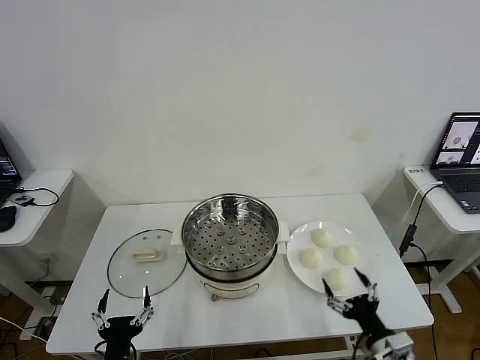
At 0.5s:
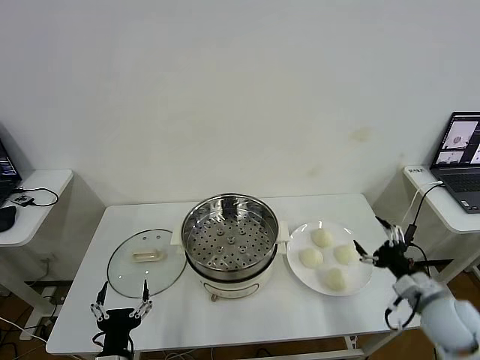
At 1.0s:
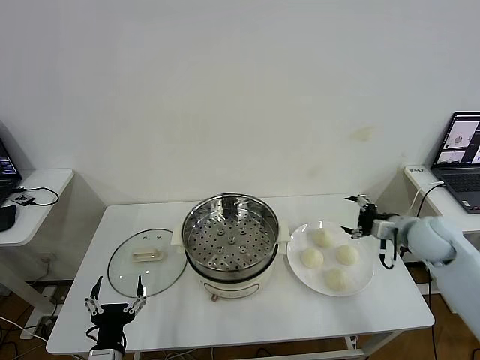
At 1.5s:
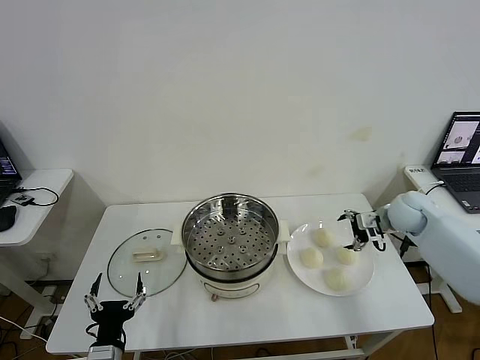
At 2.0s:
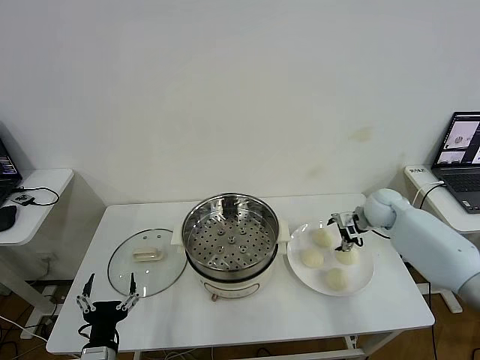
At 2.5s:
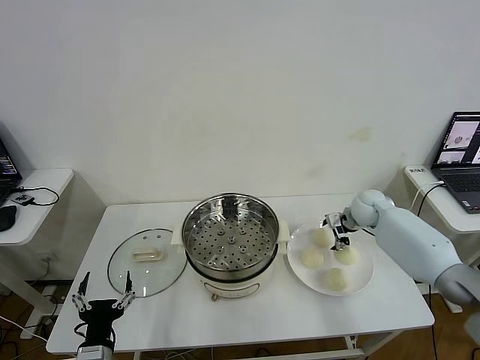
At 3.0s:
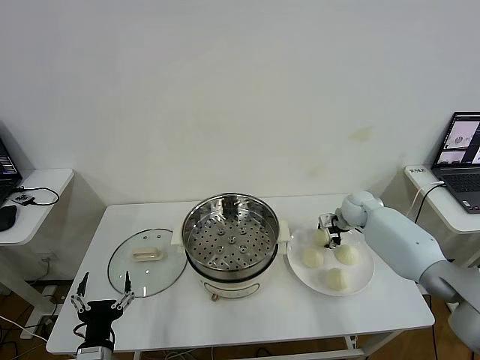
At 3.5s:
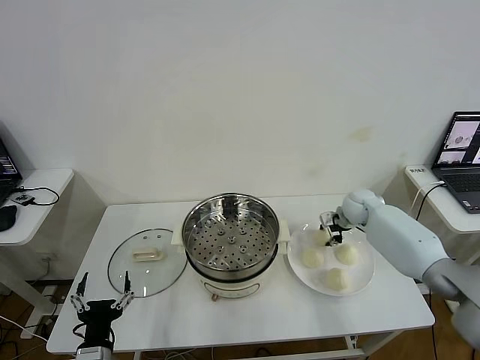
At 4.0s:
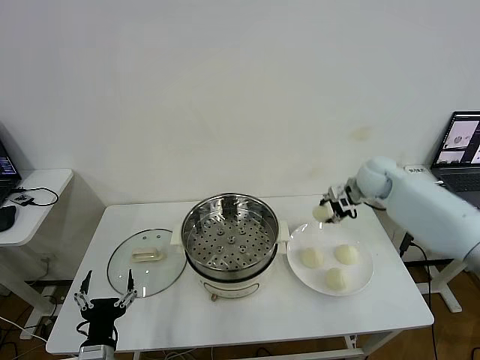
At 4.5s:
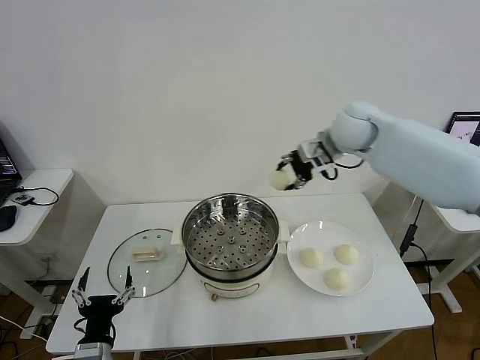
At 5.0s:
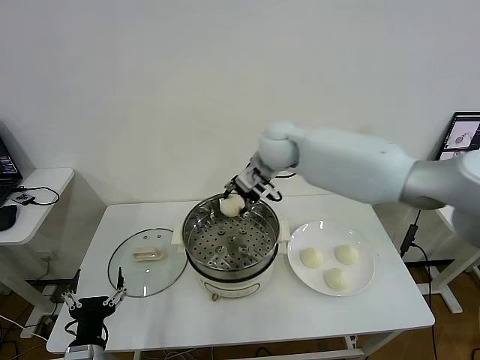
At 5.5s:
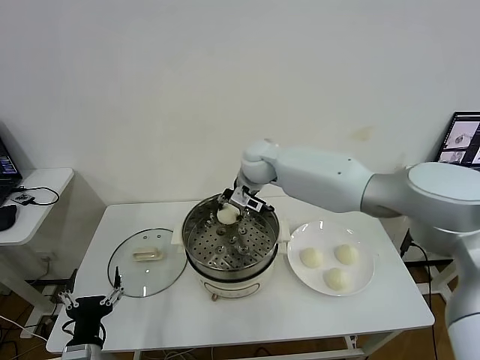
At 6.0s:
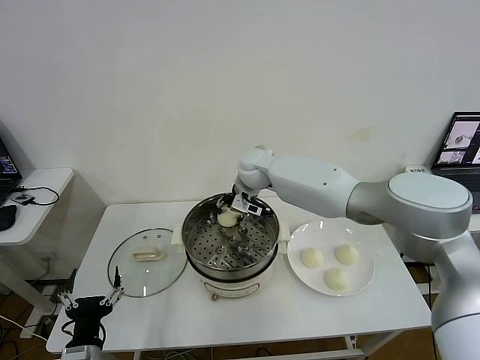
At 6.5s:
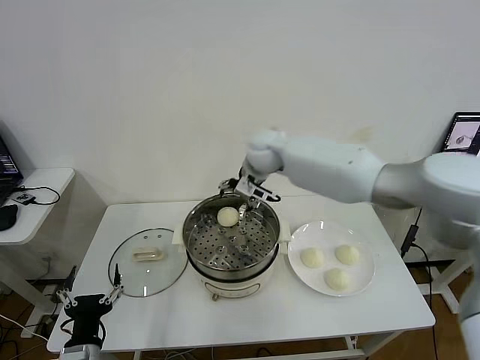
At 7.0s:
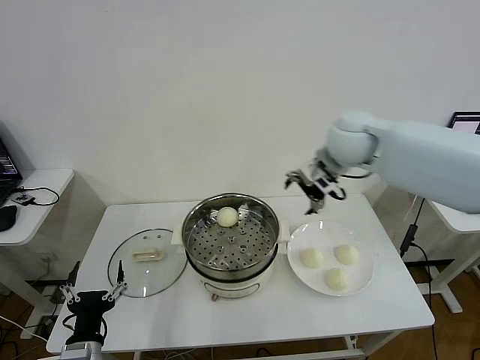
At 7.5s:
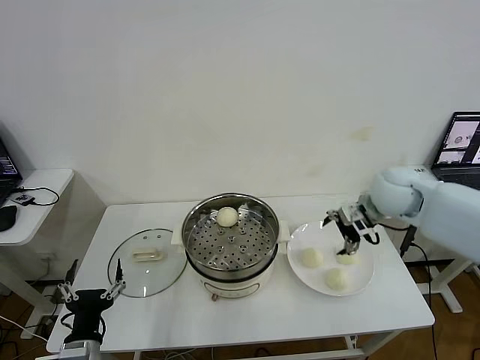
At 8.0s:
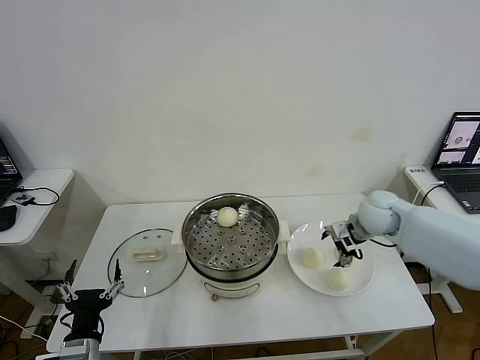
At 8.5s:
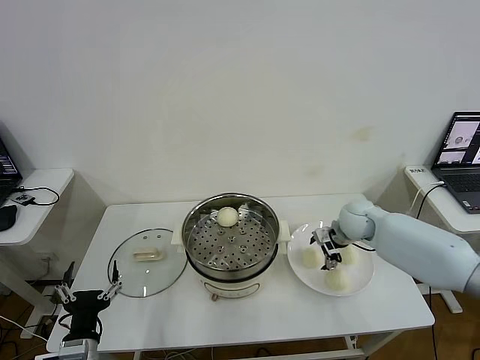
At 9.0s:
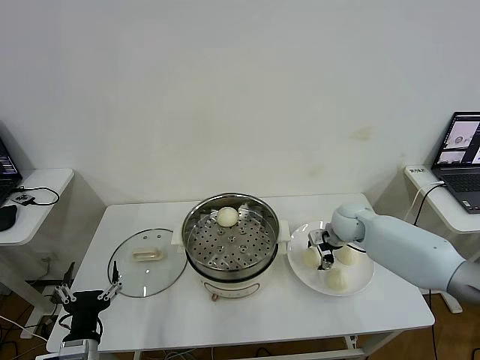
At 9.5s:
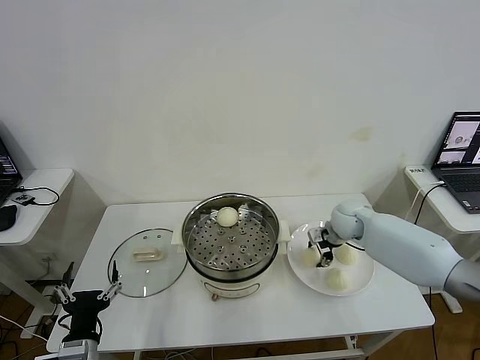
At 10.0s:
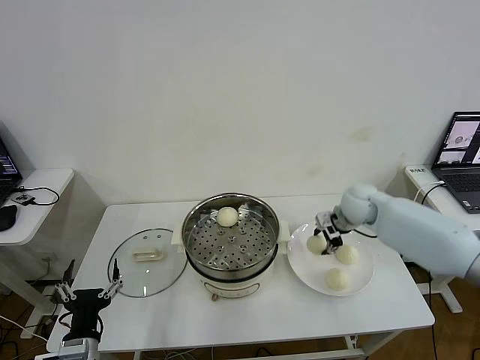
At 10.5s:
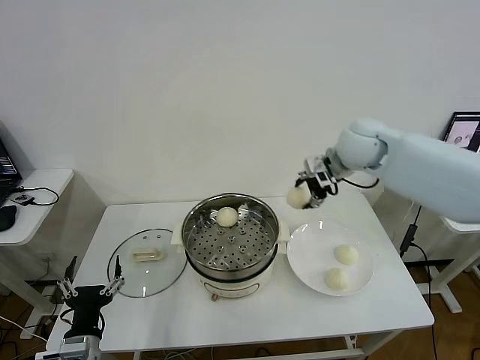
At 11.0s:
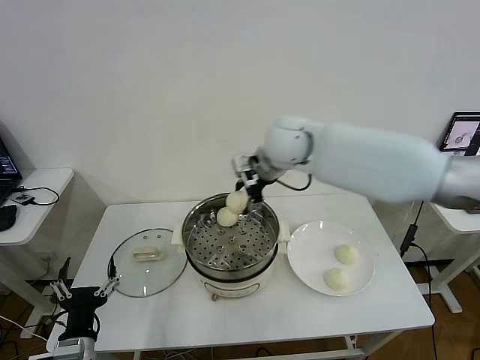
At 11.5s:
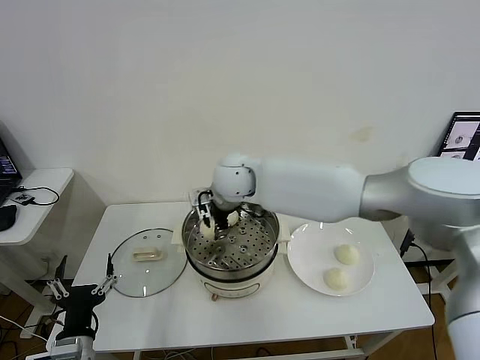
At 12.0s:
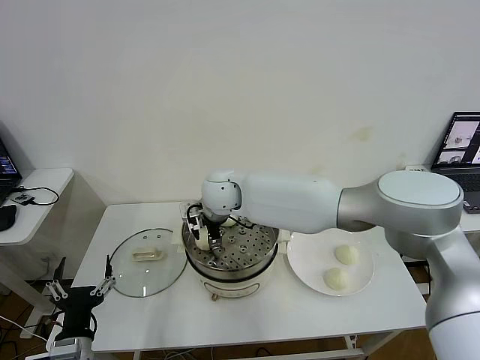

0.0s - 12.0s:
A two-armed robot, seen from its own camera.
Step, 0.0s - 3.0s: Grasp the baozi in the plate with right gripper.
Step, 3.5s - 6.0s: Place the baozi on the steamer with right gripper.
Step, 6.5s - 9.5s: Grasp the baozi in the plate with right gripper.
2.0s - 4.0s: The right gripper goes about 15 cm upward, and closes up.
4.0s - 6.0s: The right gripper moves to the left, about 25 cm, and opens.
6.0s - 8.0s: The right gripper travels to the right by some 25 cm, and opens.
8.0s - 10.0s: The right gripper moves roughly 5 cm, and closes.
10.0s - 12.0s: The right gripper moves to the left, about 35 cm, and opens up.

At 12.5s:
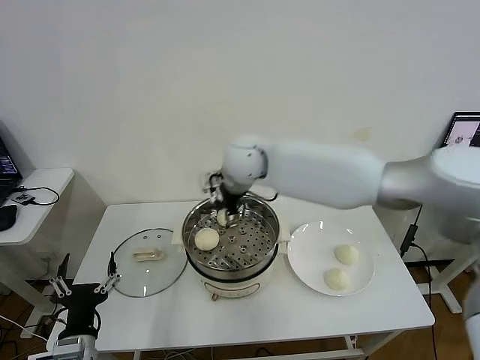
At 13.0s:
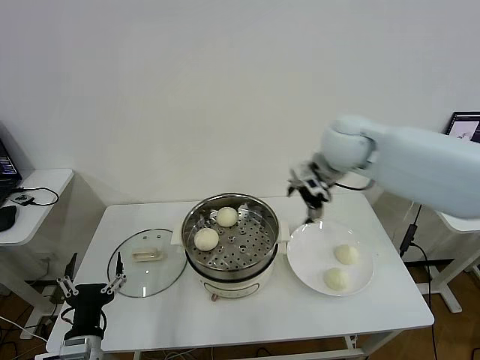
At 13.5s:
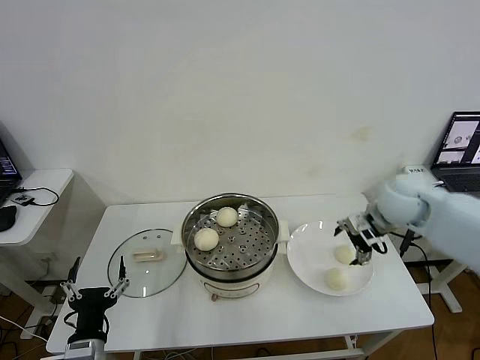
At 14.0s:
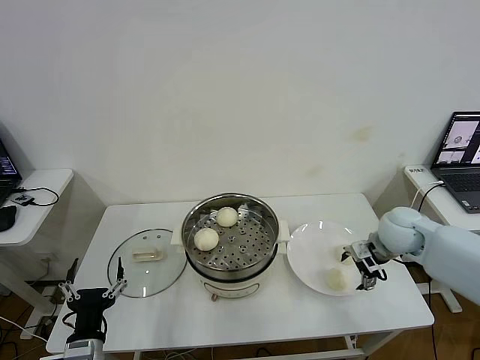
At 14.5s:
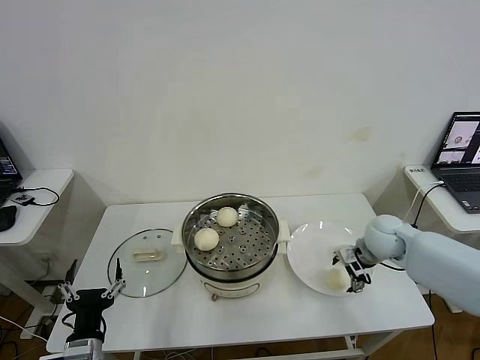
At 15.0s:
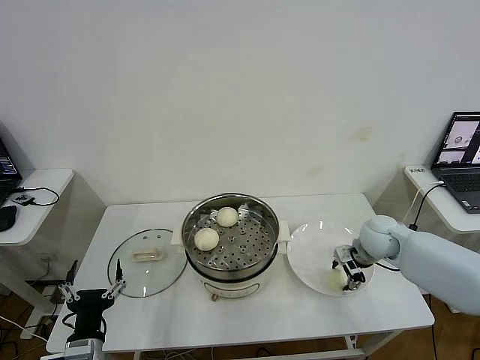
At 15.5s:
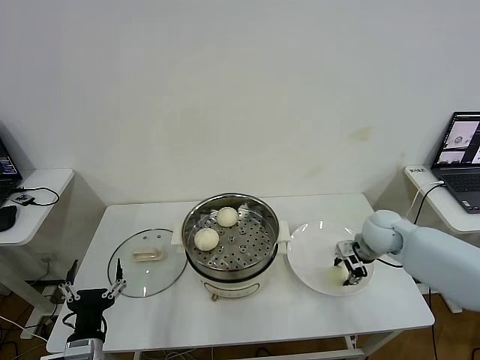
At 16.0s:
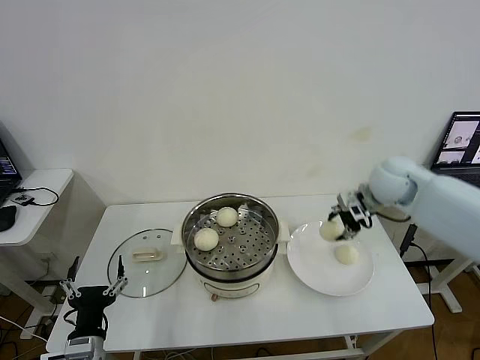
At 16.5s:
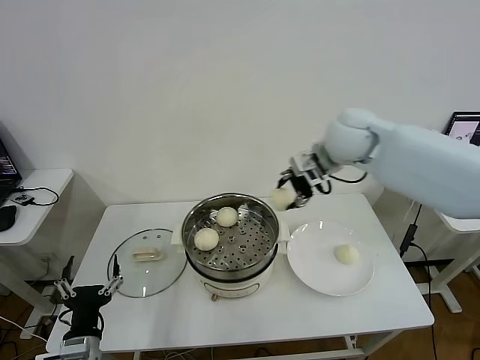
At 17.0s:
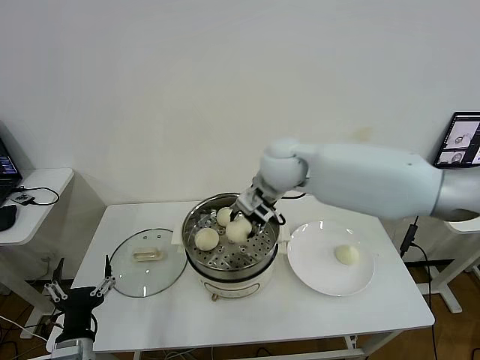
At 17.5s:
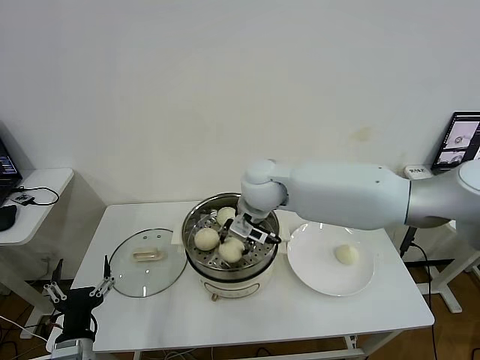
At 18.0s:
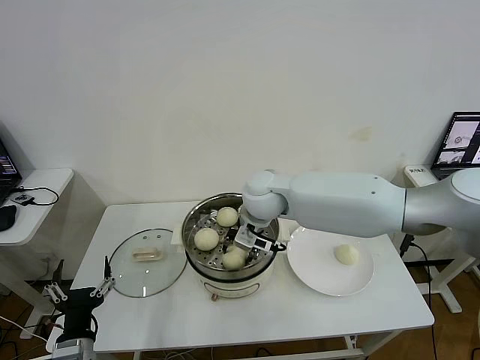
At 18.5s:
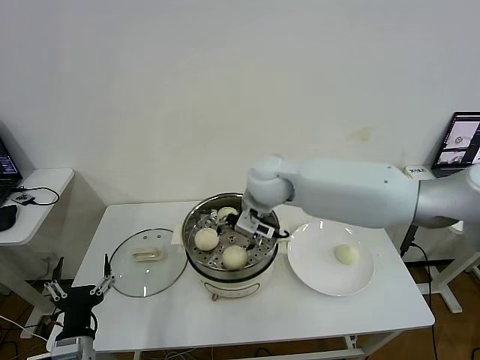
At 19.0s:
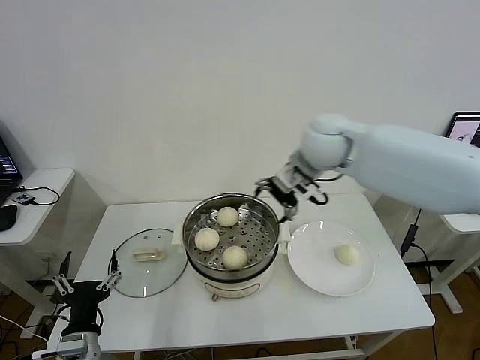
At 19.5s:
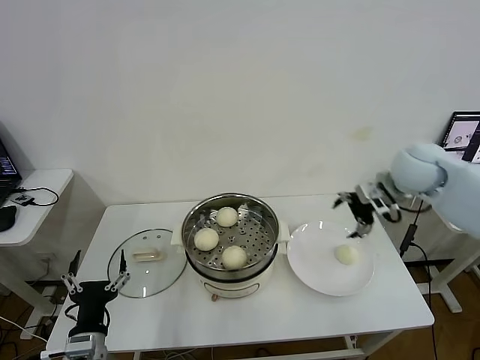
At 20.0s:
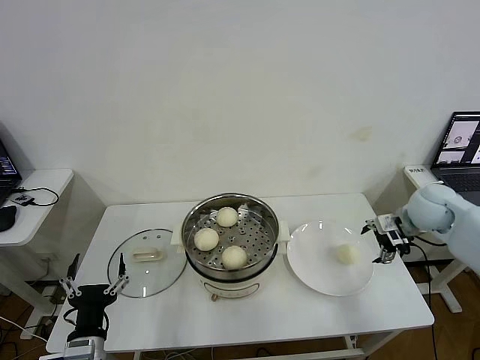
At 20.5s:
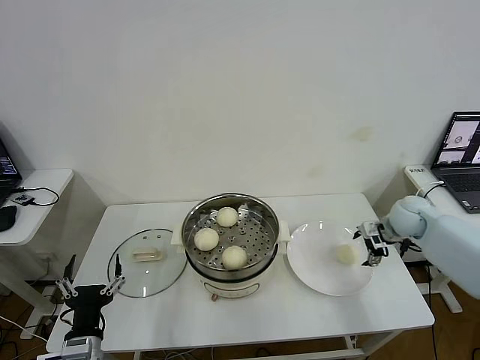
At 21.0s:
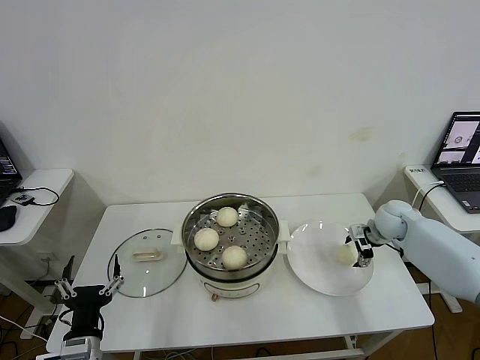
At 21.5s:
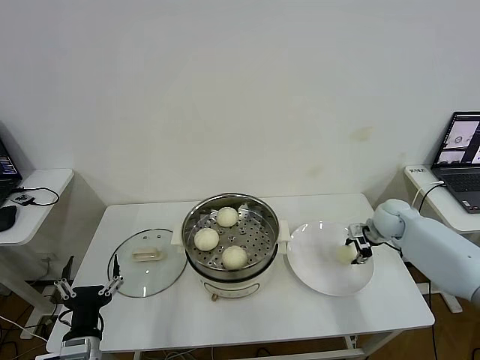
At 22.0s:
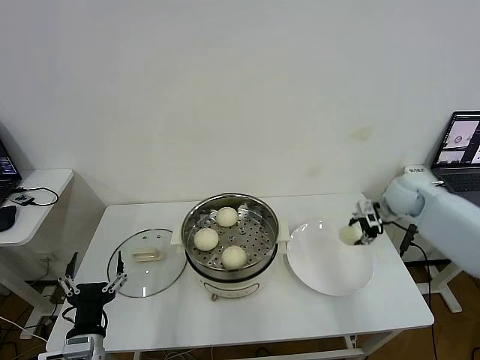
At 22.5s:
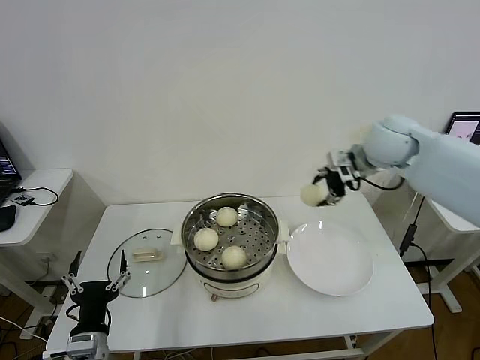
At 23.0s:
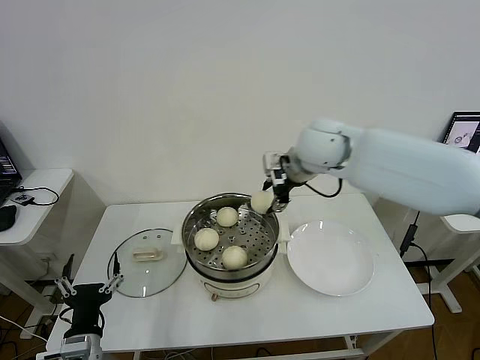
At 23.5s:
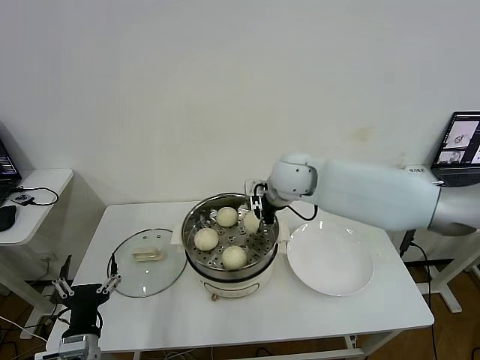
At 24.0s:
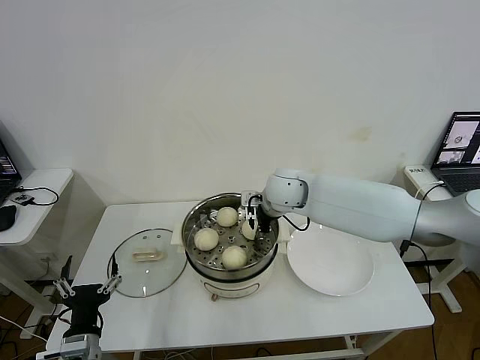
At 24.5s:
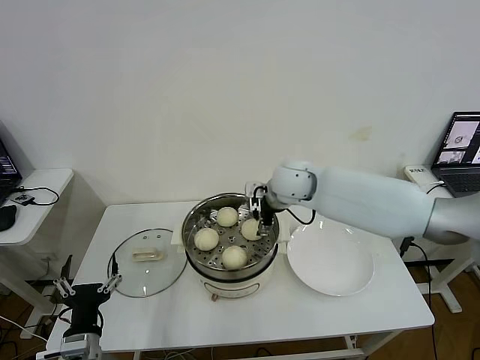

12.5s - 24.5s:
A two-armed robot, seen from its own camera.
Step, 12.5s - 15.0s: Grasp the baozi in the plate with right gripper.
Step, 15.5s - 18.0s: Place the baozi on the steamer with right gripper.
Step, 19.0s - 21.5s: Grasp the baozi in the plate with right gripper.
Step, 22.0s - 24.5s: Place the baozi on the steamer with right gripper.
12.5s - 14.5s: The right gripper goes some 35 cm to the right and downward.
14.5s - 16.5s: The right gripper travels upward and to the left by approximately 25 cm, and closes its fingers.
16.5s - 18.5s: The right gripper travels to the left and downward by some 15 cm, and opens up.
18.5s - 20.5s: The right gripper travels to the right and downward by about 40 cm.
20.5s - 22.5s: The right gripper travels upward and to the left by some 25 cm, and closes.
22.5s - 24.5s: The right gripper moves to the left and downward, about 20 cm, and opens up.

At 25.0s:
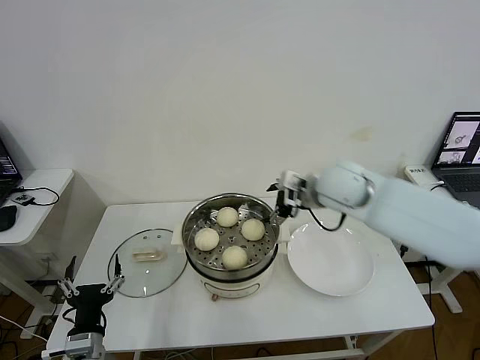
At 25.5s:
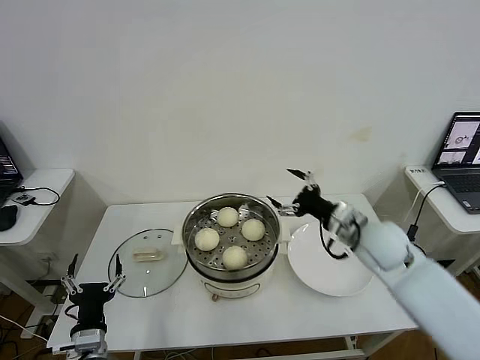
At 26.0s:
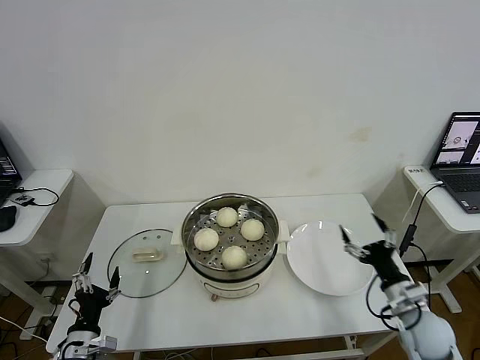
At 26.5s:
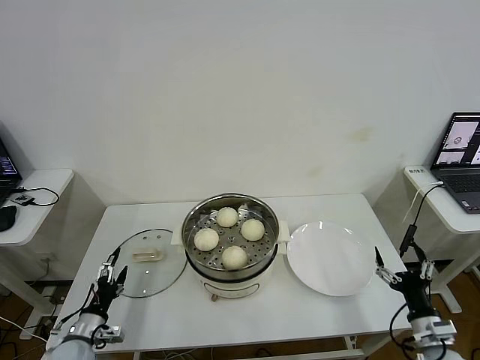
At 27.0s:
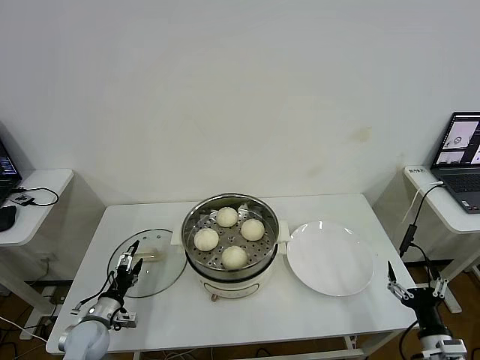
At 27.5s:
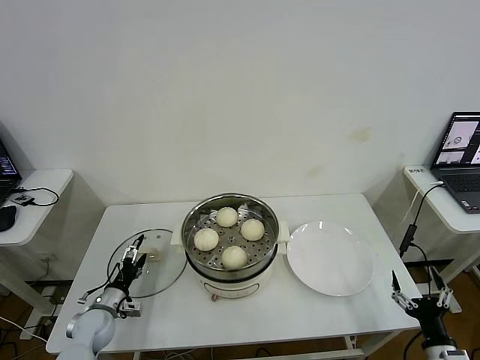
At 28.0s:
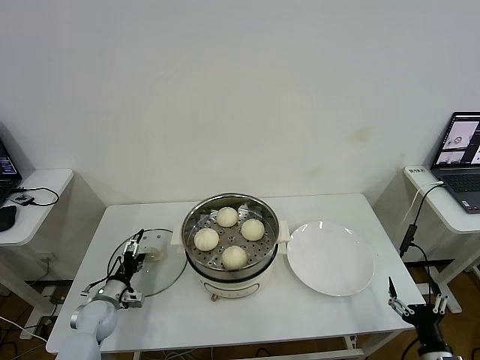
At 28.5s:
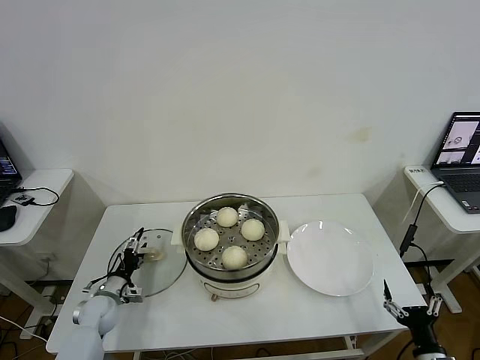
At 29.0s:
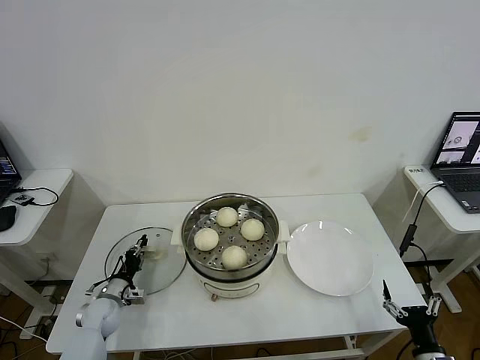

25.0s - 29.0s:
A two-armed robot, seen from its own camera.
Step, 25.0s - 28.5s: Grasp the pot lid with left gripper.
25.0s - 27.0s: The left gripper goes about 20 cm forward, downward and to the left; the right gripper travels backward, downward and to the right by about 50 cm.
27.0s - 29.0s: The left gripper moves forward, some 5 cm, and closes its fingers.
